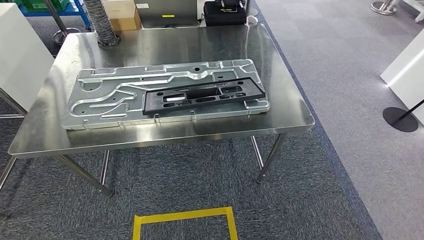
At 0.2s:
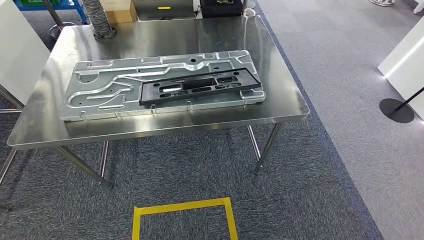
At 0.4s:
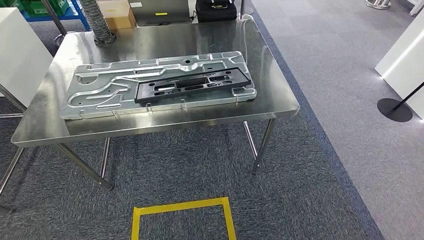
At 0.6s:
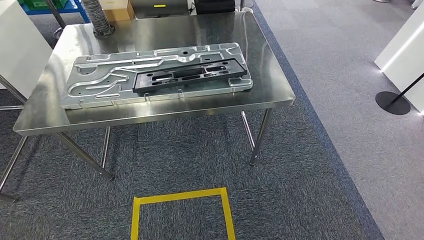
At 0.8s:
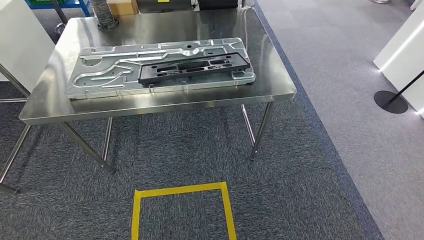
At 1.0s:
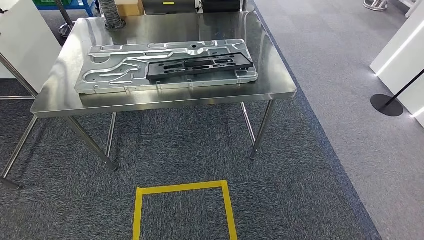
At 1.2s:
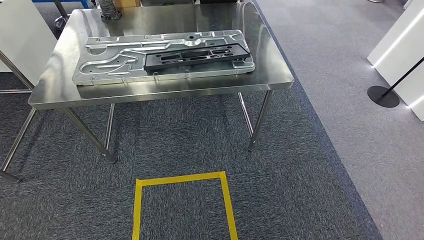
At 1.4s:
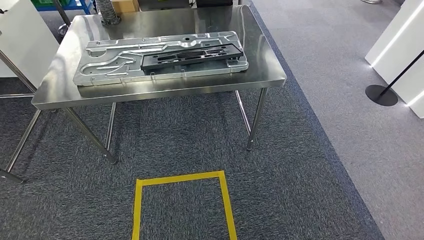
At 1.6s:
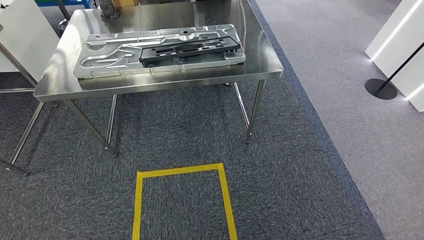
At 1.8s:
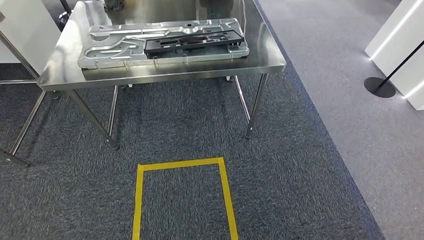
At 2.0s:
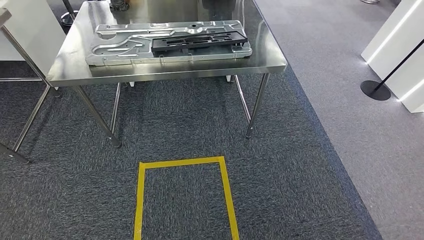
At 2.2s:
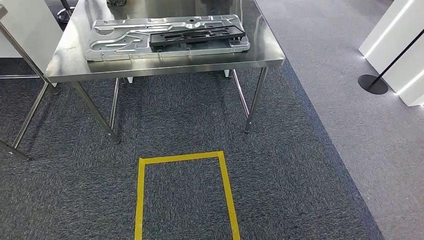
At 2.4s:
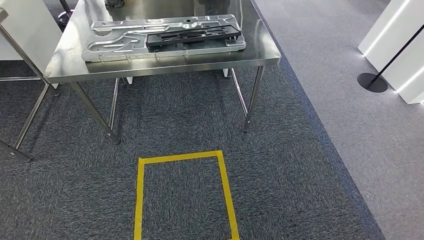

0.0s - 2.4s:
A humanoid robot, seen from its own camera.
Step, 0.0s - 2.4s: Move to the initial position of the shelf.

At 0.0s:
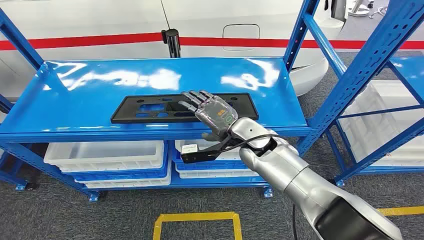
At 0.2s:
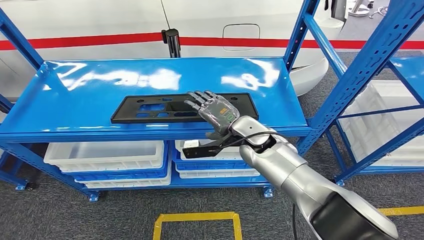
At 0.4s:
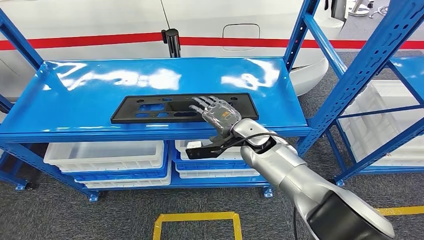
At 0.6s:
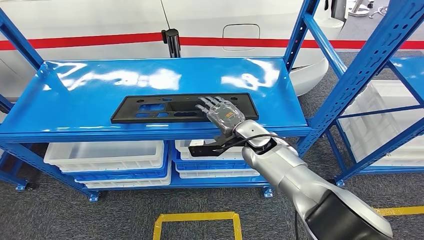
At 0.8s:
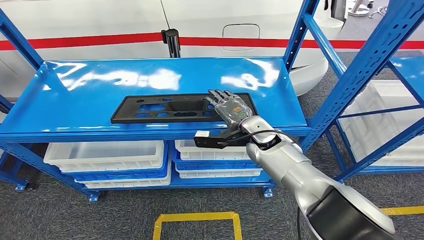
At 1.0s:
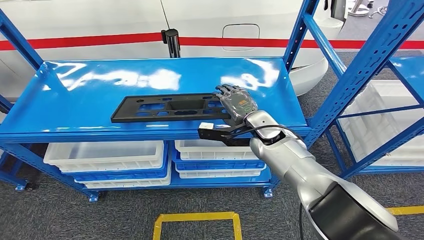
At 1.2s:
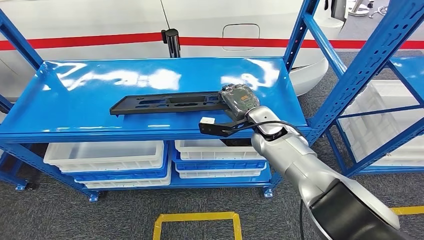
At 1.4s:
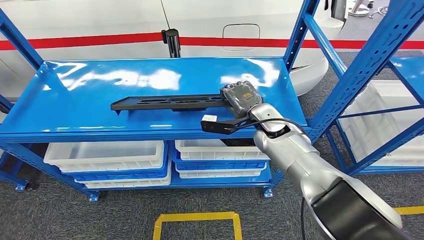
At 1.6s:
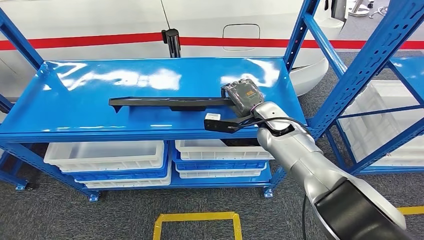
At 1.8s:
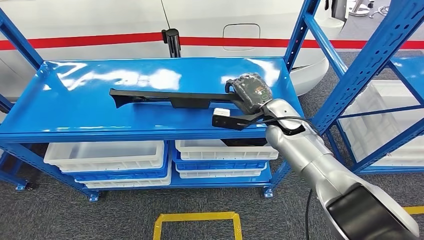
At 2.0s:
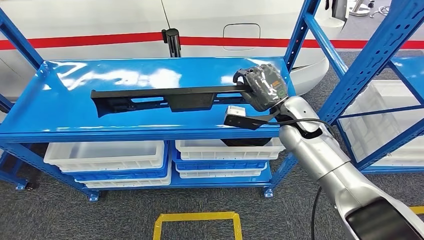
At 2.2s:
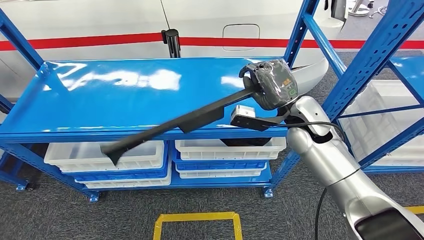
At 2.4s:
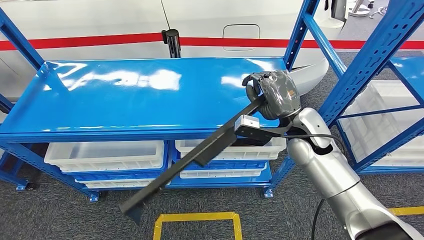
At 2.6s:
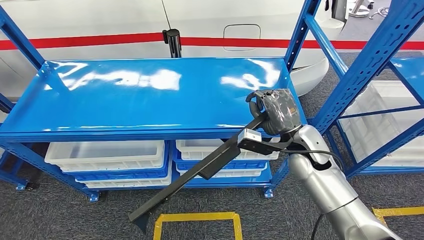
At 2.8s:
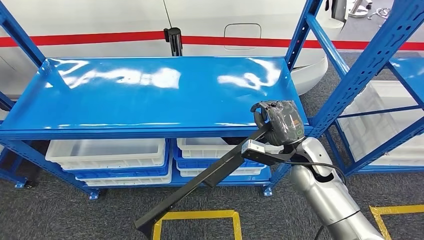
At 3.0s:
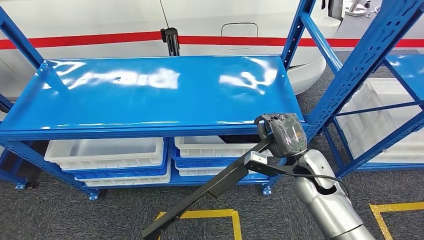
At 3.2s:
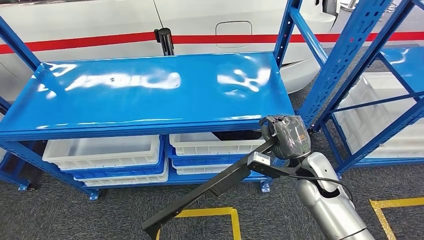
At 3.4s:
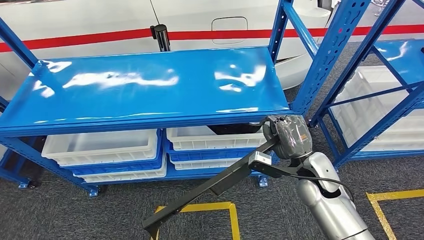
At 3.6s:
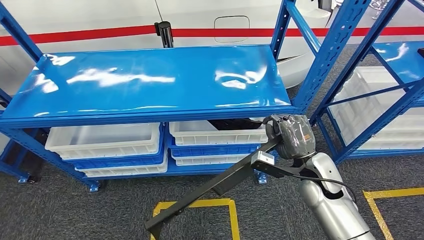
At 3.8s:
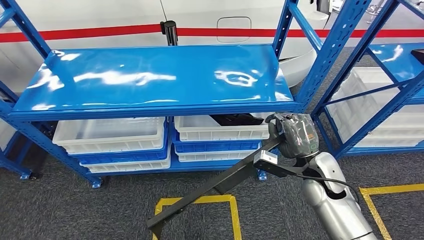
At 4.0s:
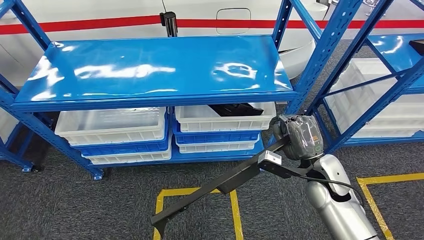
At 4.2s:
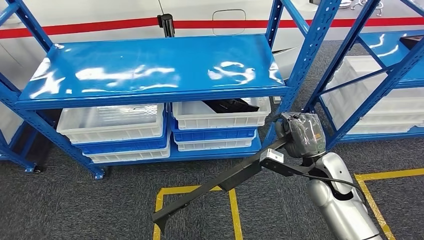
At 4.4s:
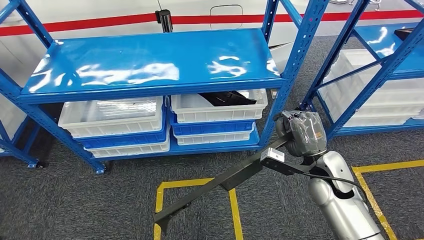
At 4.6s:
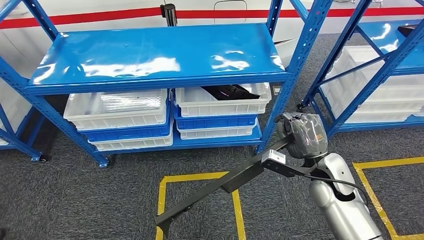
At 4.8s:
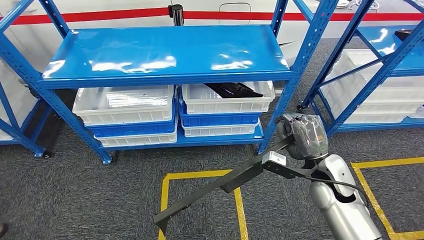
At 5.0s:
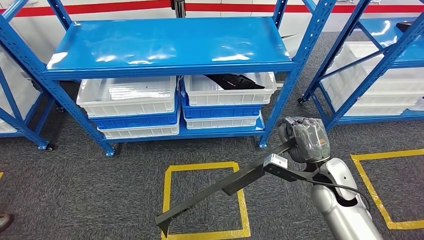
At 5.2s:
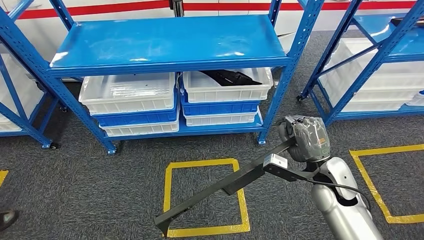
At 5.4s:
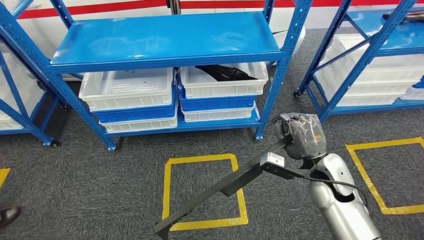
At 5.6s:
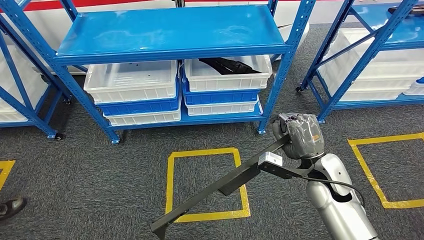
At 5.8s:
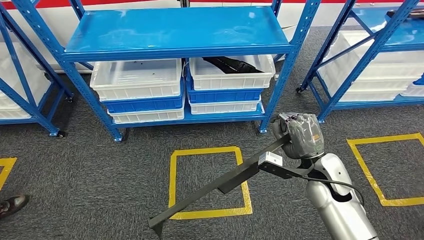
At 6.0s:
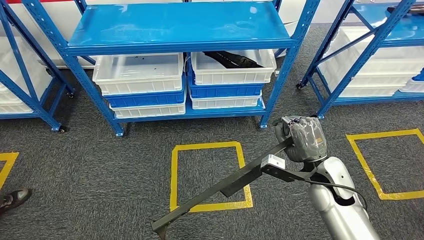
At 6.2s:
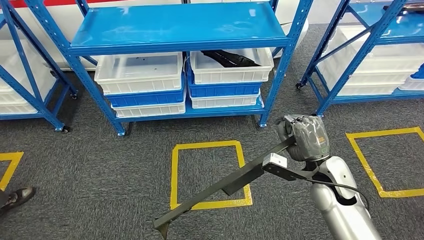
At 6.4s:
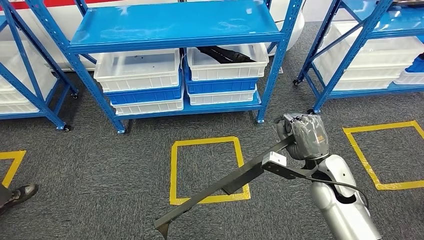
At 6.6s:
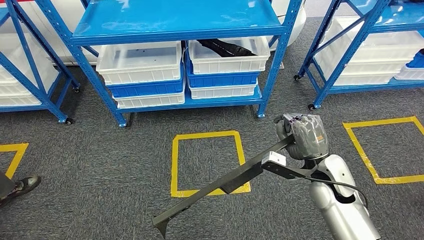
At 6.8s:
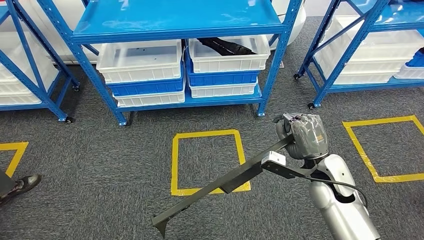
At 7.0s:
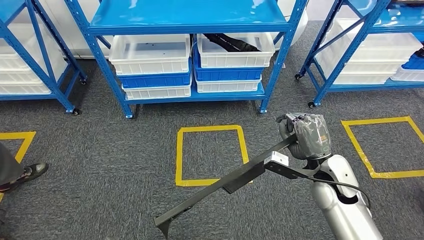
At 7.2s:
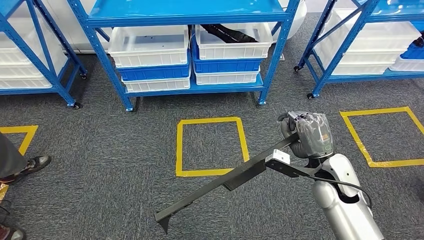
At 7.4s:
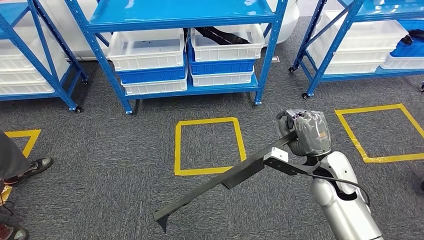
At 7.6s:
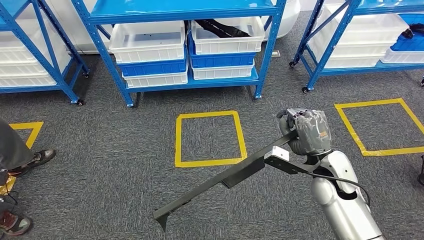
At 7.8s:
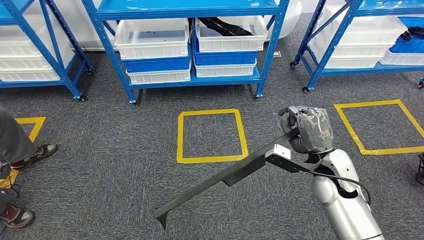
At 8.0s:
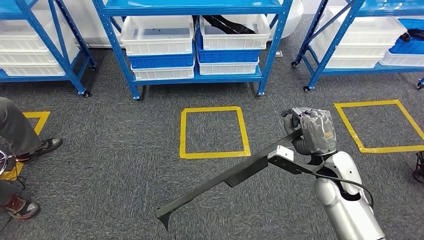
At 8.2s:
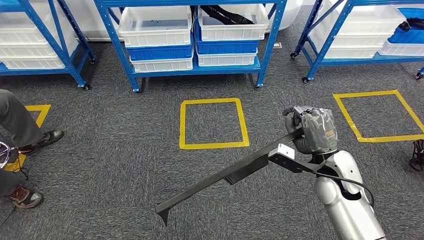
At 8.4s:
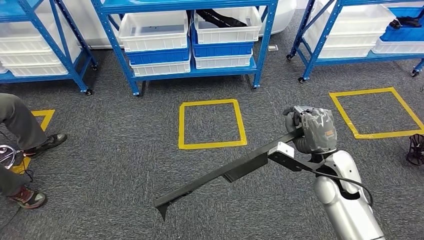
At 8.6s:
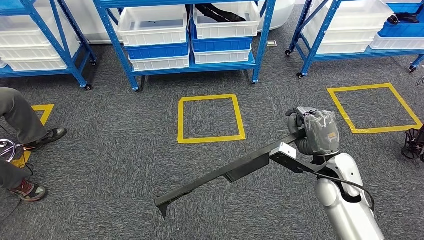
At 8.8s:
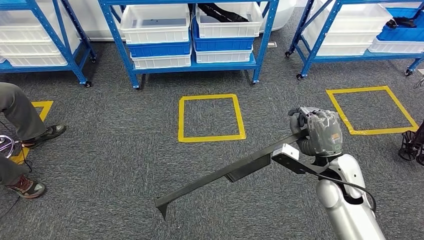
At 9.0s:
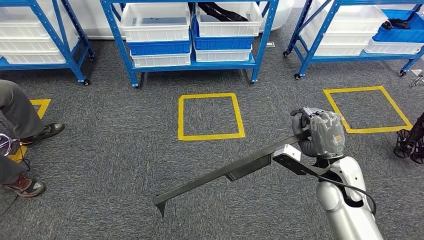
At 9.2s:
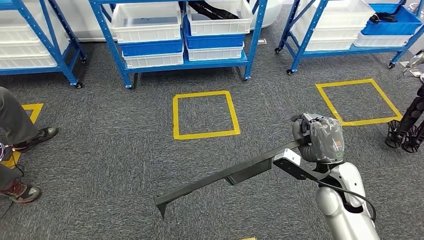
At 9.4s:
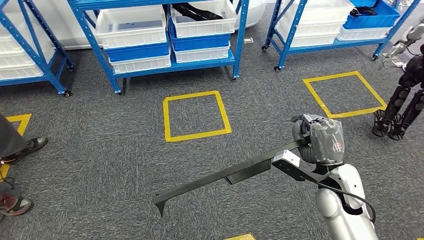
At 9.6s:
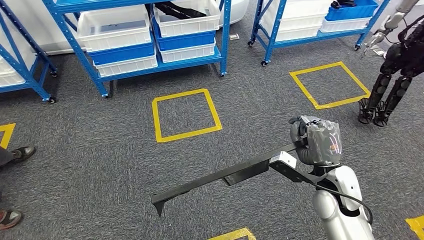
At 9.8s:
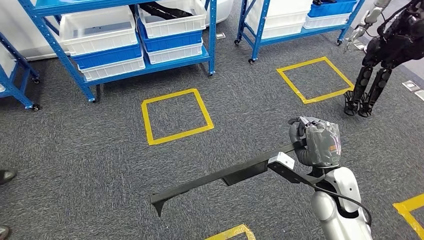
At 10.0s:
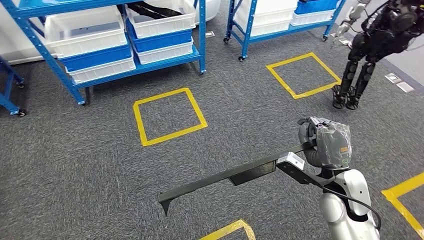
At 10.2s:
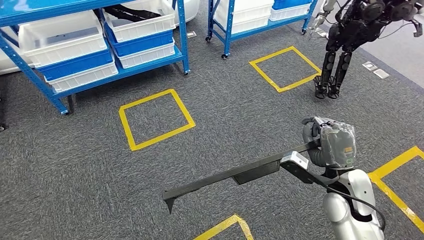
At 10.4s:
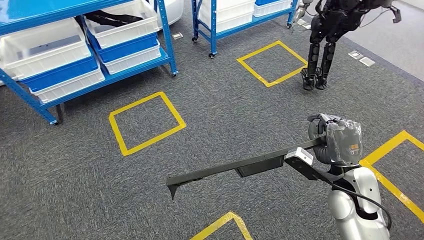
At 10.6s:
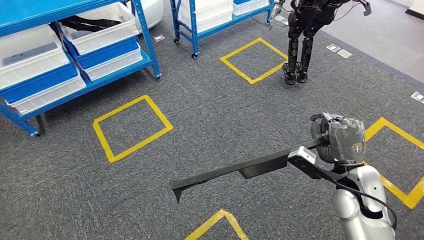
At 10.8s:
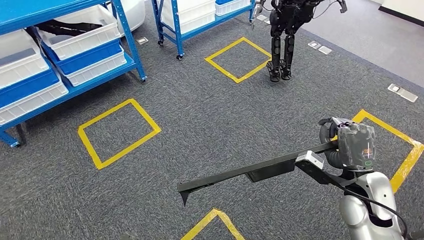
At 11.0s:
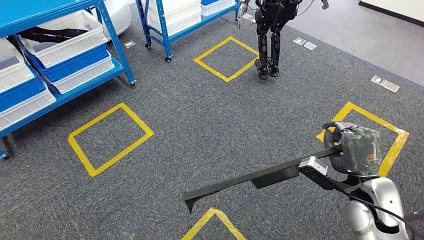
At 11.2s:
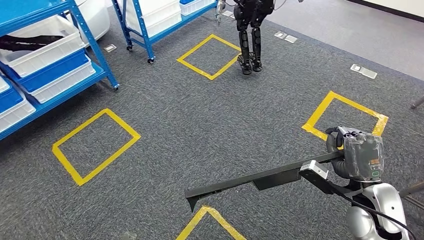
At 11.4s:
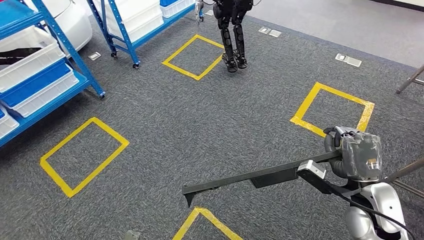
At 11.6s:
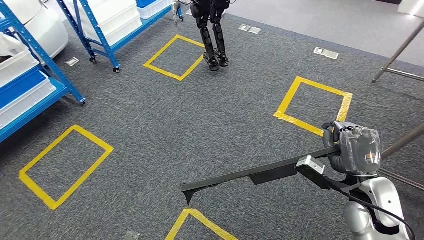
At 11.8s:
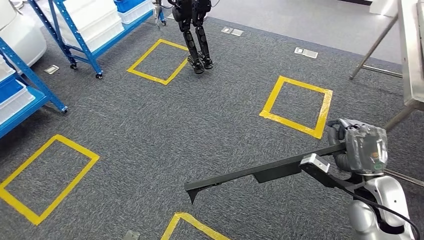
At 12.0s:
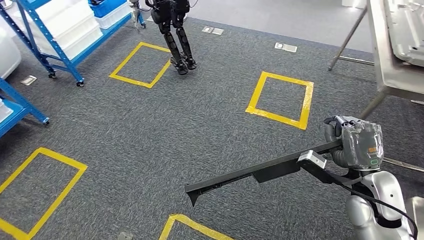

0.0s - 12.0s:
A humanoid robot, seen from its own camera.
Step, 0.0s - 5.4s: Pick up the large material from the shelf.

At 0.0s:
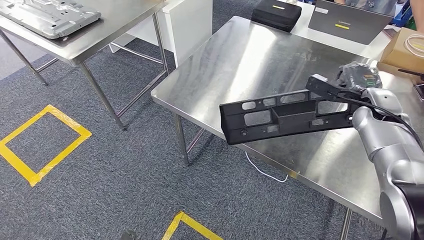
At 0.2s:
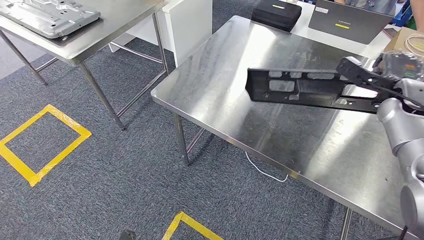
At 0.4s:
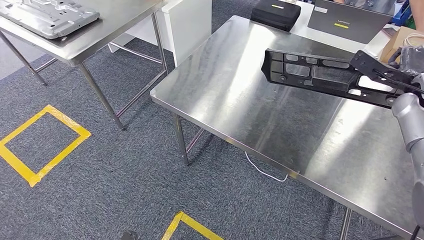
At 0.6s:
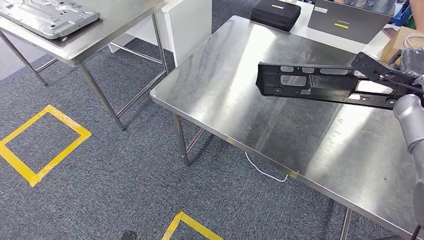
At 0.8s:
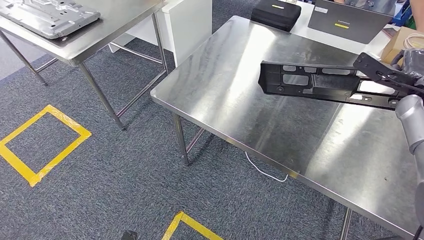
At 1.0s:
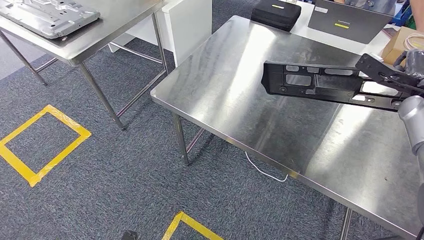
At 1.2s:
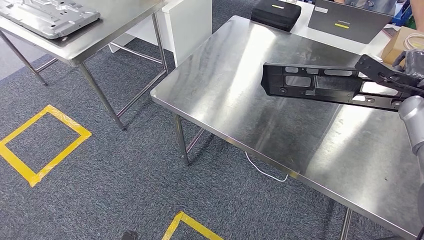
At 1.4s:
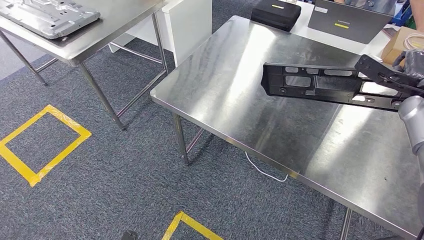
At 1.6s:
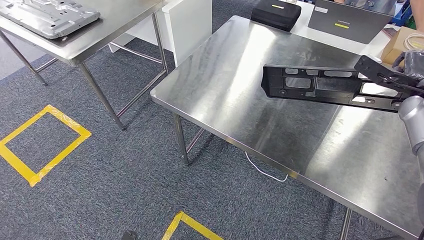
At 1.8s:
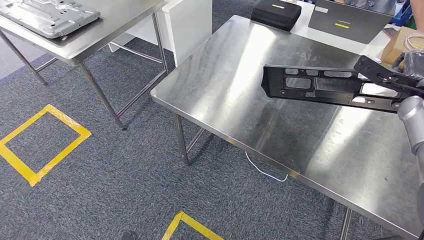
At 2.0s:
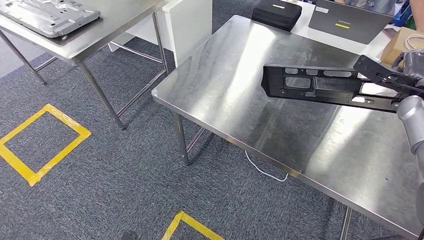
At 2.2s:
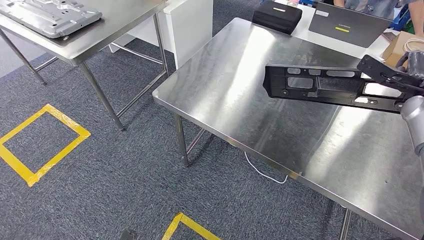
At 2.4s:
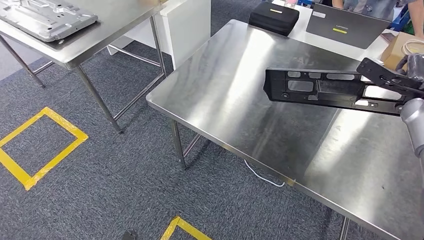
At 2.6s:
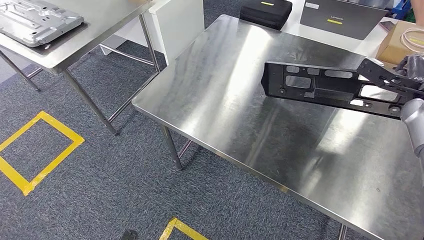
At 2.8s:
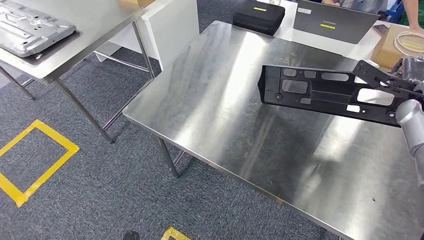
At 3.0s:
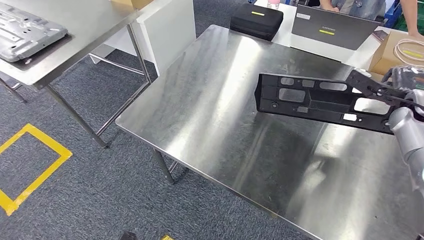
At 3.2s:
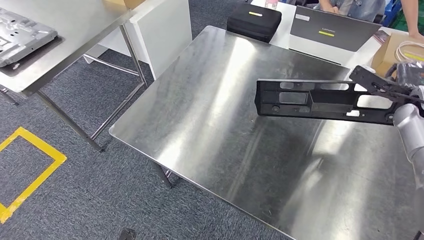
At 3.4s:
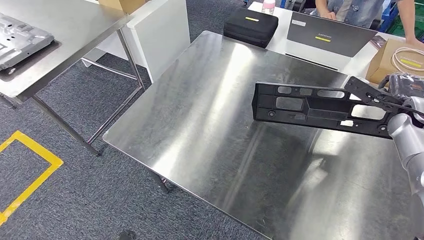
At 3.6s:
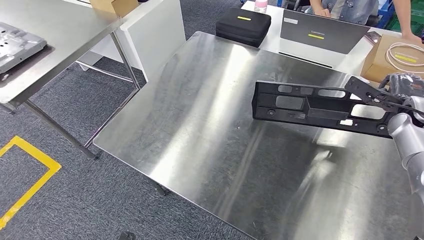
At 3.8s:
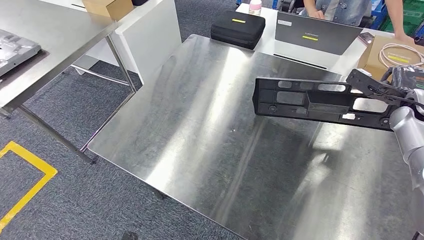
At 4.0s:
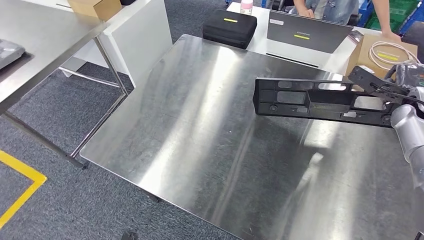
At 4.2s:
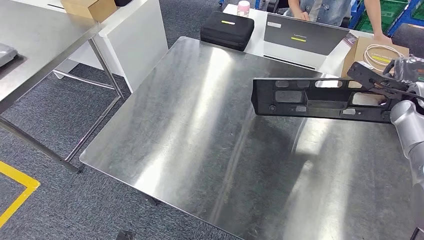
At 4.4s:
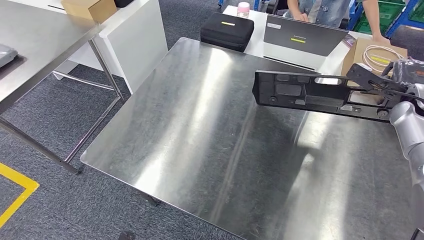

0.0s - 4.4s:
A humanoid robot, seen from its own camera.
0.0s - 1.4s: The right hand is displaced to the right by about 10 cm.
